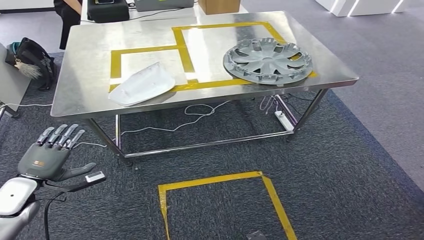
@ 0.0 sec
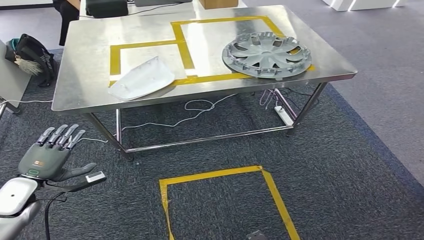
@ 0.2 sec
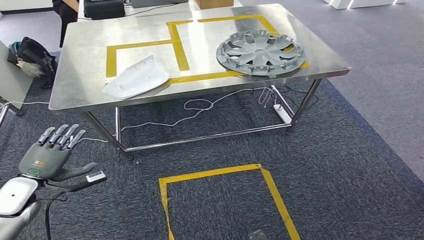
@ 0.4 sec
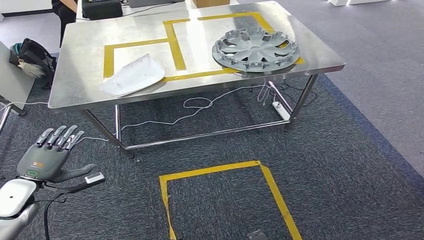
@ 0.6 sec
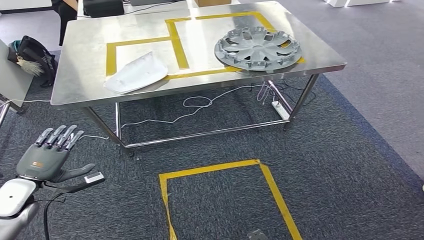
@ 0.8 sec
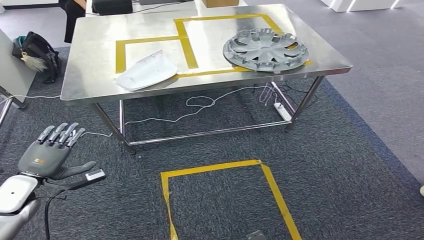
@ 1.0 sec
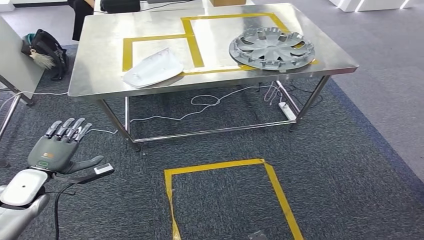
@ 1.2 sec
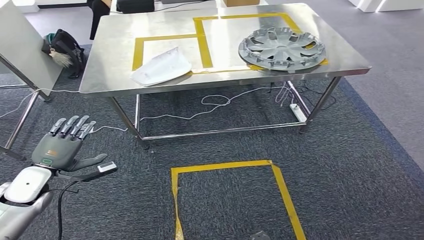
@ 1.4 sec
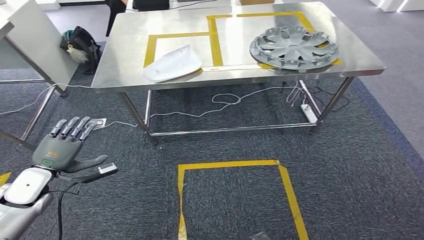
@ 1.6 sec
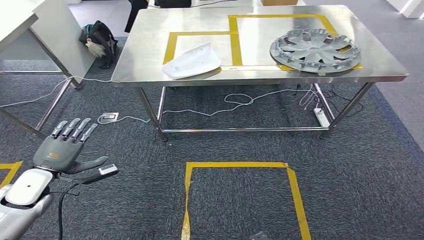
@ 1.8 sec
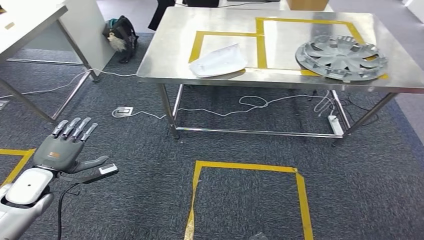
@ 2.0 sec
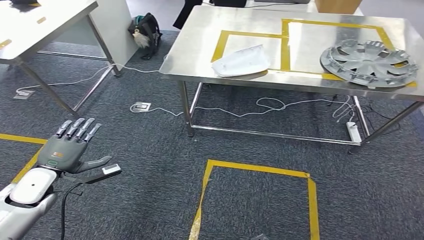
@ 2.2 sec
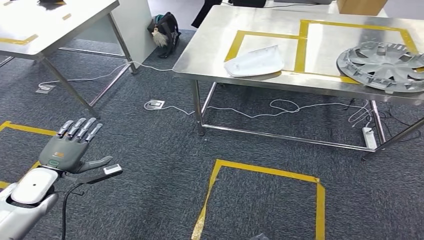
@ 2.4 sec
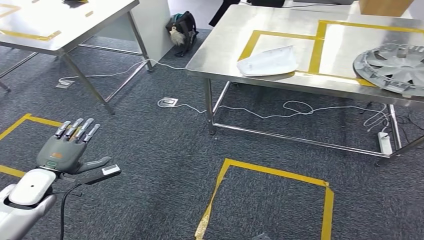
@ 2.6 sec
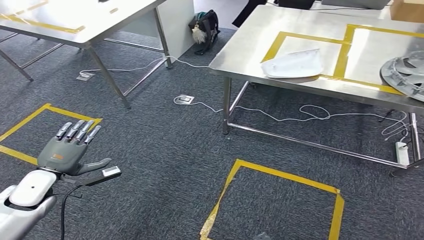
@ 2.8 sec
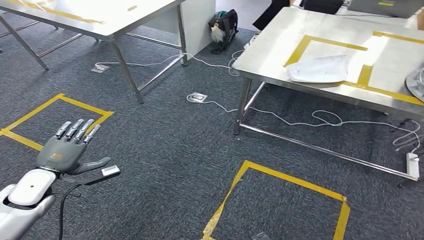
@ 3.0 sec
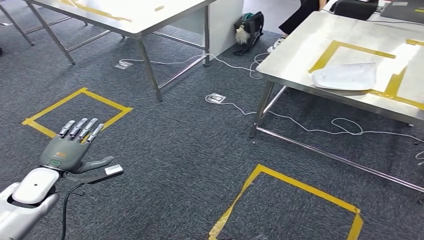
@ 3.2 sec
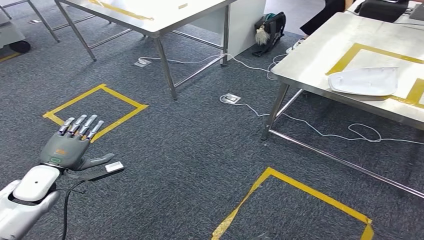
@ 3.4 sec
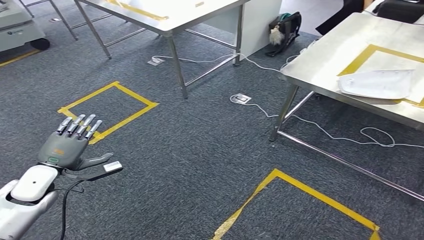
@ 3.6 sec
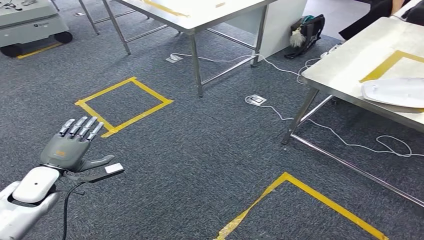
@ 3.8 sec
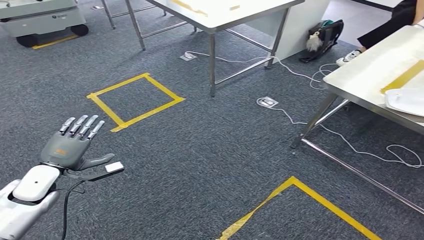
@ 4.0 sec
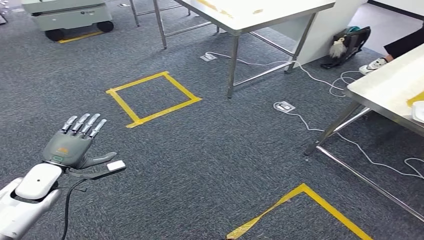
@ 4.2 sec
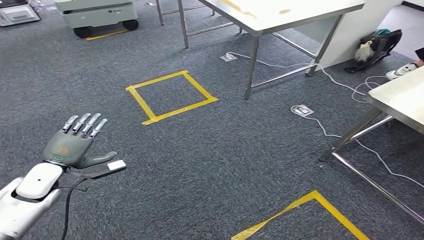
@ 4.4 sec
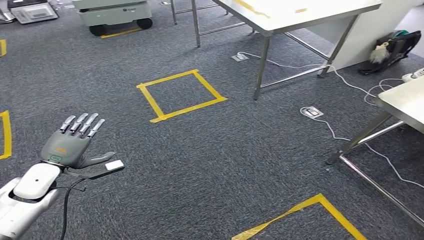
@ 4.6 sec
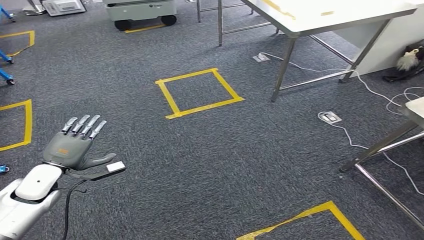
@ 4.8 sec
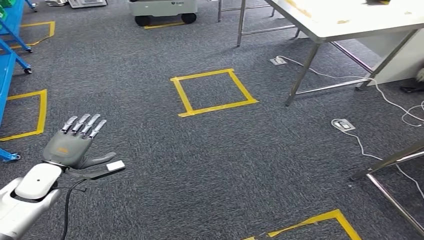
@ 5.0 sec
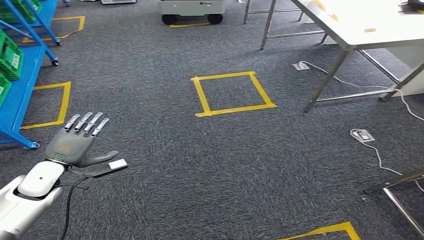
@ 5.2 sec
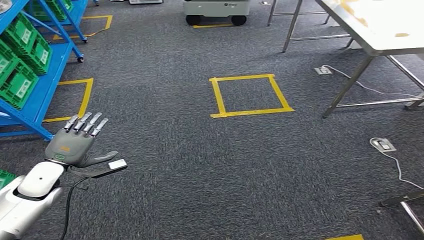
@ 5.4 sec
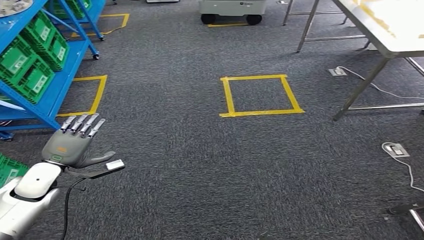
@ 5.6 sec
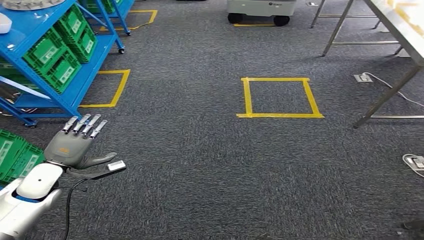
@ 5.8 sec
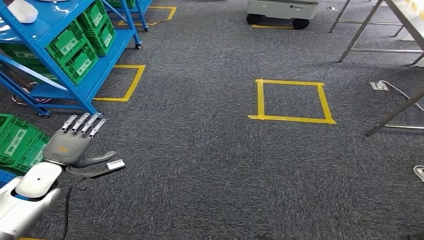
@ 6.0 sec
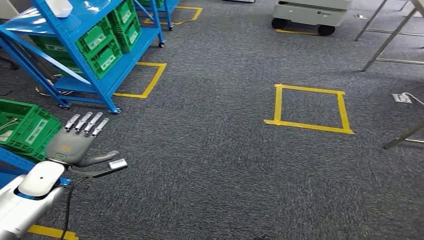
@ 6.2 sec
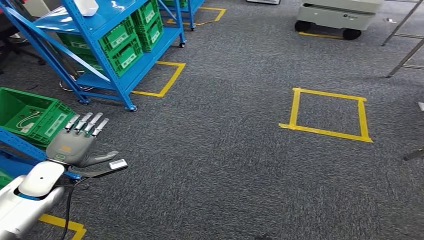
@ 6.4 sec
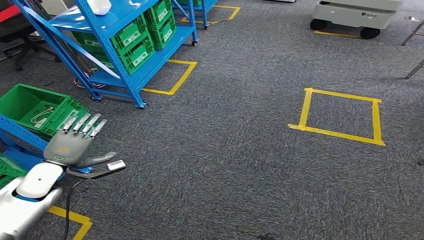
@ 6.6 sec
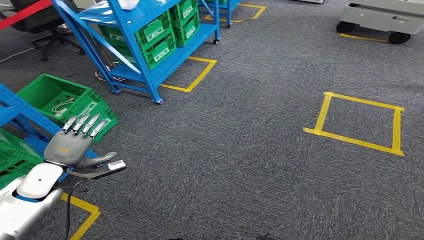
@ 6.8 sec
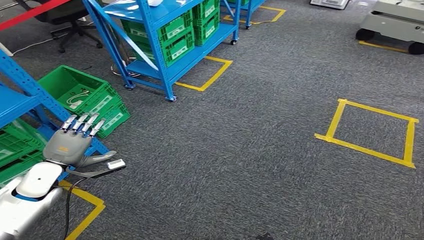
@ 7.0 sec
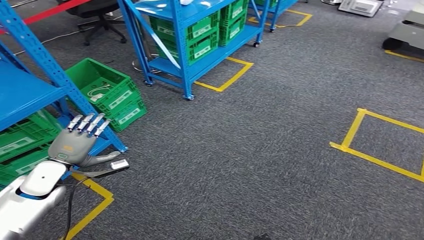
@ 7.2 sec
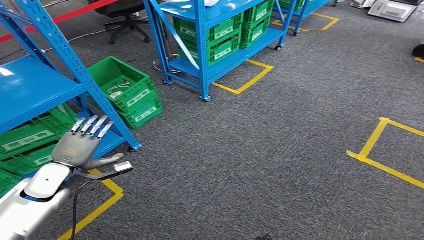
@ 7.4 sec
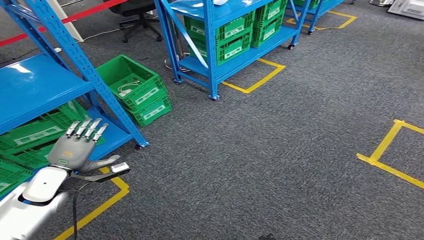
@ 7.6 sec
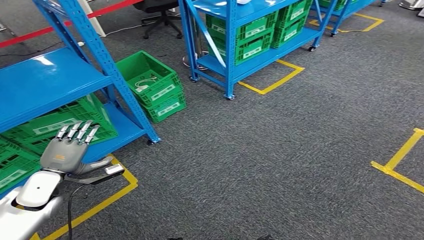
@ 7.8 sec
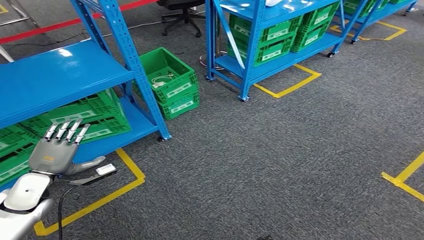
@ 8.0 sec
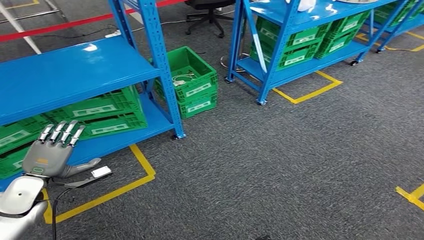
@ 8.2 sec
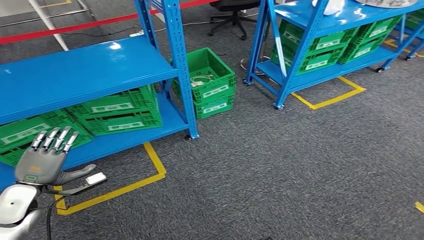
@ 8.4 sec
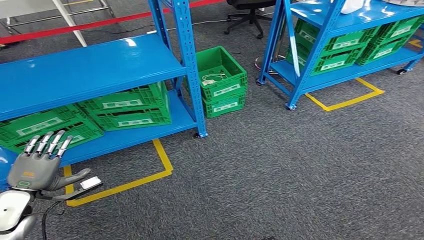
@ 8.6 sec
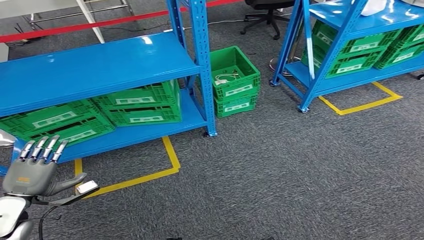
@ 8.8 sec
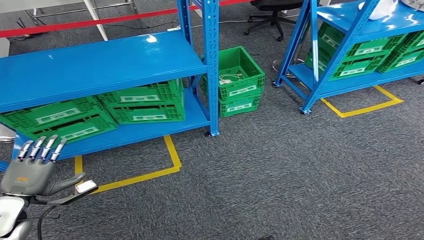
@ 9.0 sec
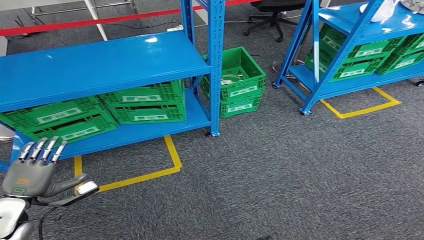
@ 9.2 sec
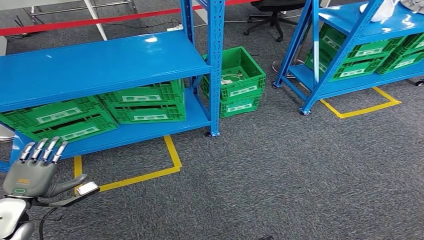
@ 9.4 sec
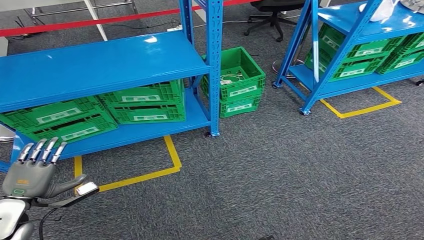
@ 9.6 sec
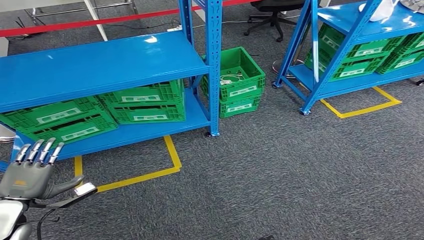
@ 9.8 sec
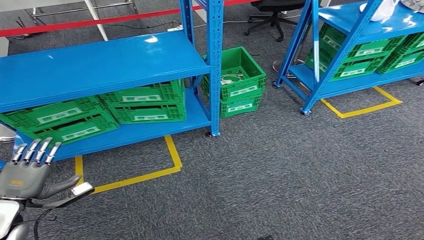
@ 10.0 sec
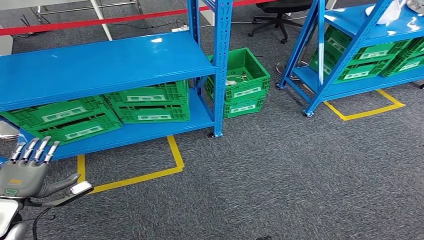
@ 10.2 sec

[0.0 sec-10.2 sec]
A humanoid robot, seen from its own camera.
Step, 0.0 sec to 10.2 sec: Return to the initial position at the workbench.
